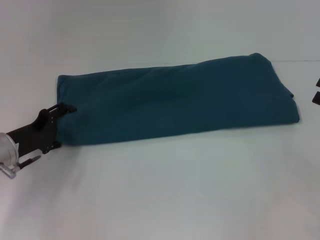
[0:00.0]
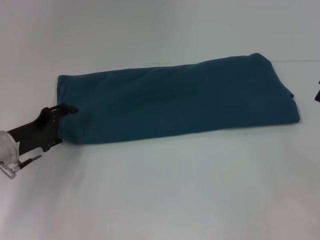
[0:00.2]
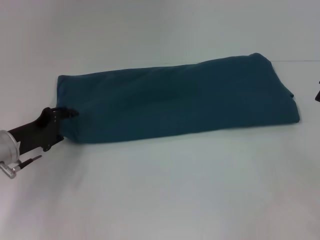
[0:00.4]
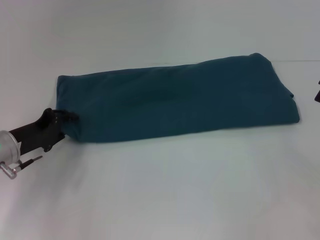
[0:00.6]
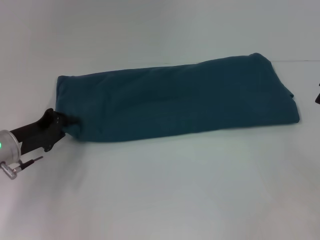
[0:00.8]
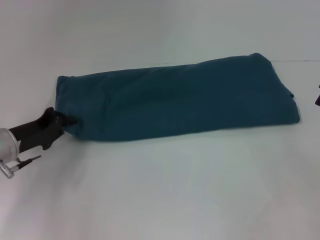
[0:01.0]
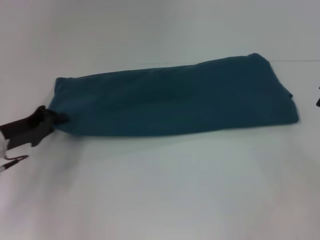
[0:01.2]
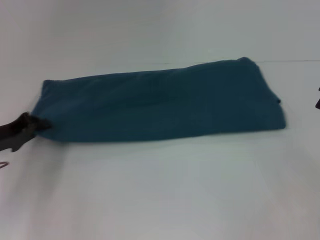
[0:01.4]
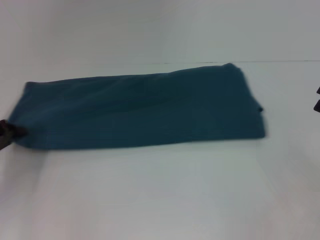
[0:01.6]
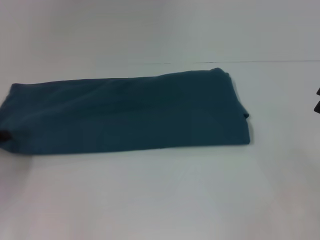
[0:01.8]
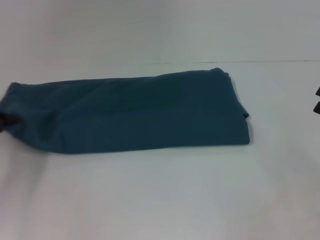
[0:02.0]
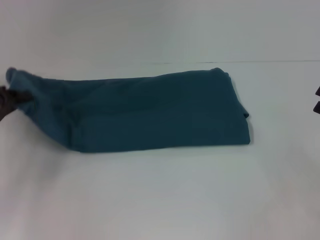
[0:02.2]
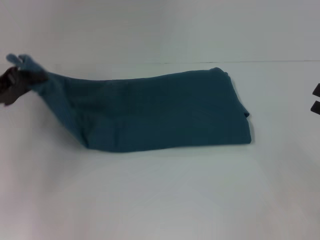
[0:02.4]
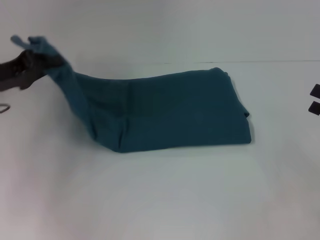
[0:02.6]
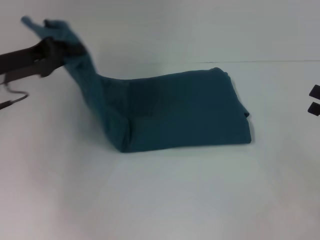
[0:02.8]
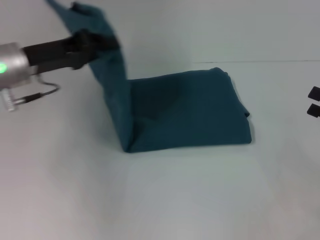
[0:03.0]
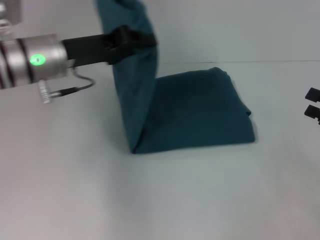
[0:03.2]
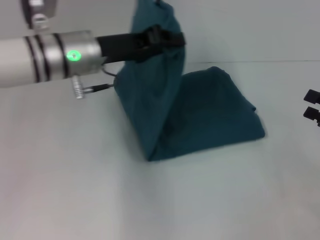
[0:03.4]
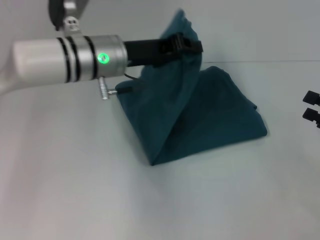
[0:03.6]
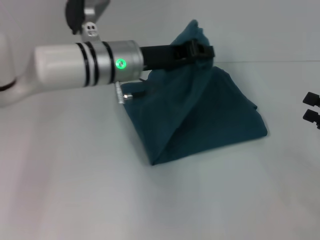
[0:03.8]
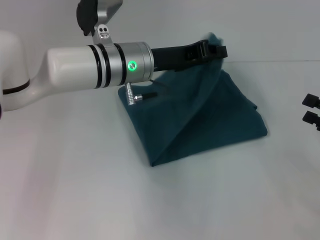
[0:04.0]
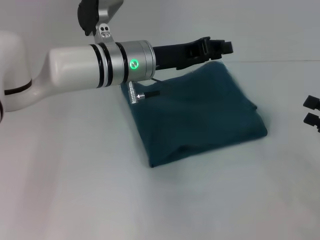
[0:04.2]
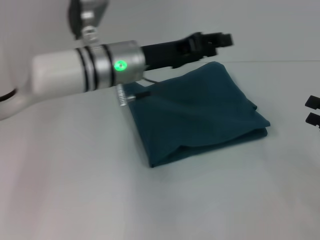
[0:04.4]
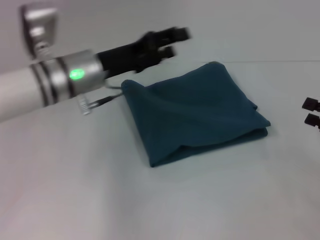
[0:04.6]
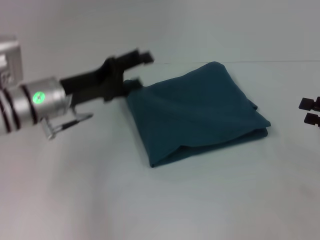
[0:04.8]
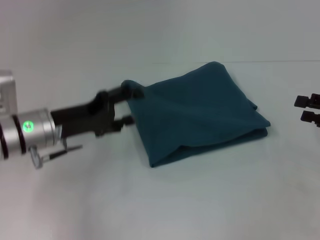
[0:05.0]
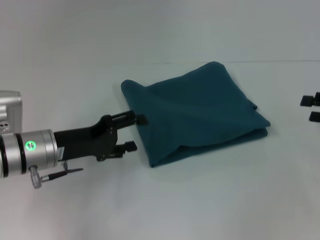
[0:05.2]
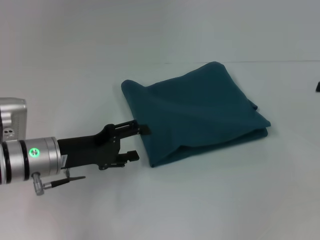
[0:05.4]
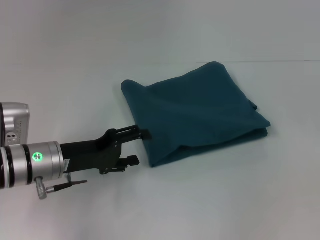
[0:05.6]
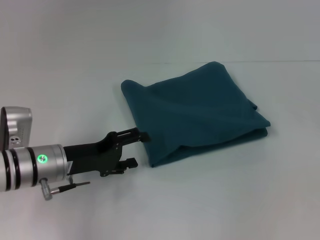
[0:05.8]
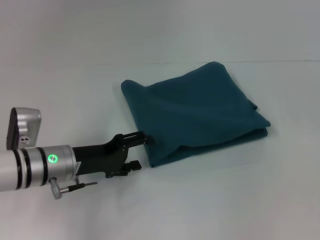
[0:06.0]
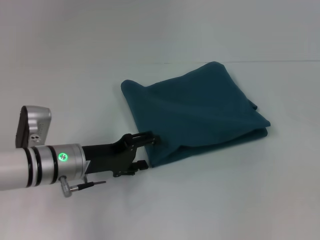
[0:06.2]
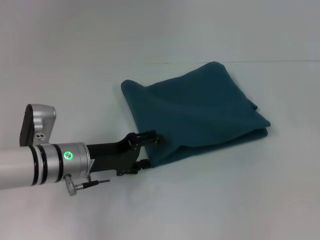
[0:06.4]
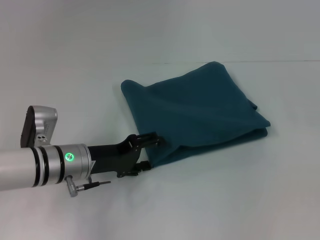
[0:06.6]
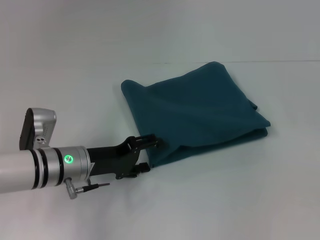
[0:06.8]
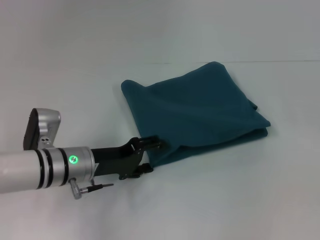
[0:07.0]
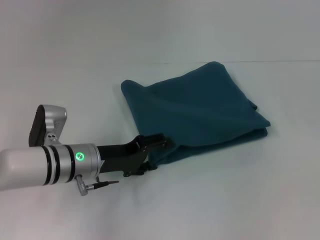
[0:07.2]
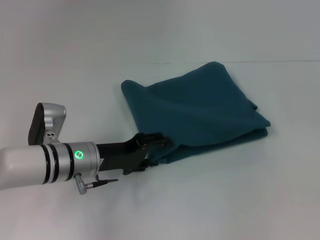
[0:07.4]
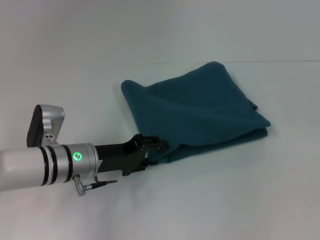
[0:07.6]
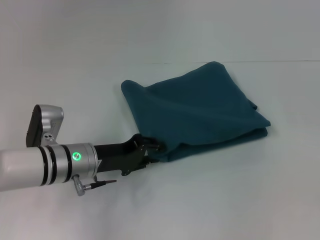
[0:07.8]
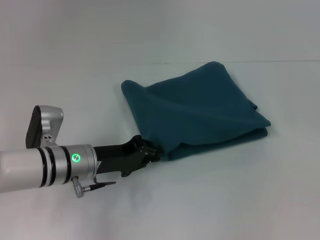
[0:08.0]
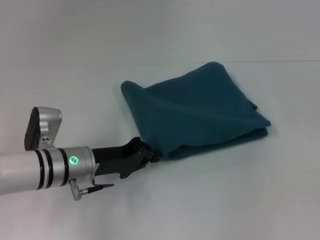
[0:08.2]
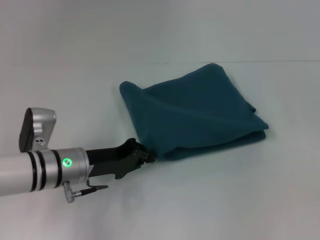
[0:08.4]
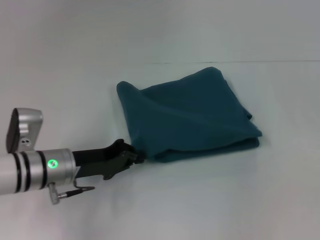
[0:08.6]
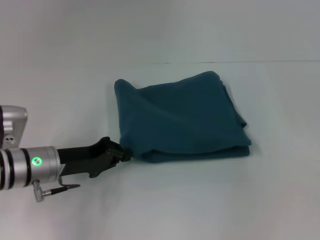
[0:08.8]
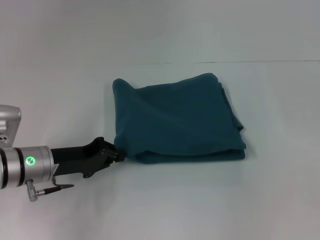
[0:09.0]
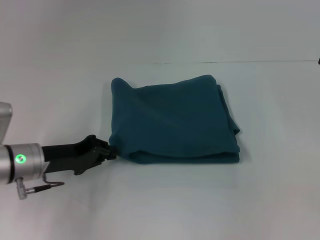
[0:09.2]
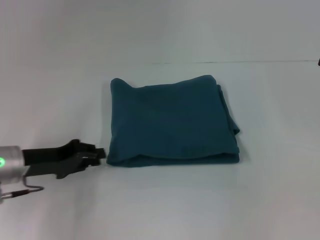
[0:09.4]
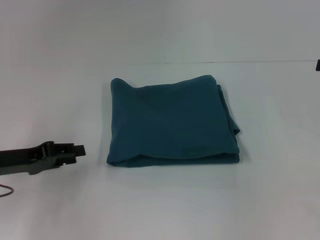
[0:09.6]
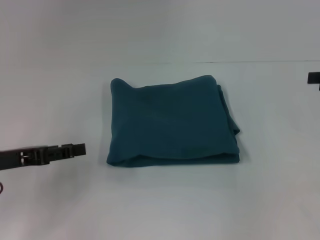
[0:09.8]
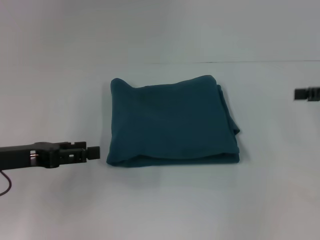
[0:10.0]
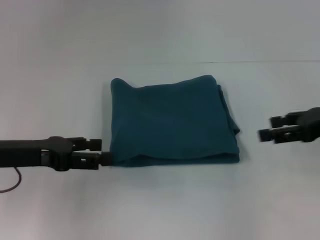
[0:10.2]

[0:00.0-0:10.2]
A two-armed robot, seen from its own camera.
Step, 0:00.0 to 0:04.2: Fold the clothes to the left.
0:00.0 to 0:01.4: The left gripper closes.
0:01.4 to 0:03.0: The left gripper travels upward, to the right and forward by some 15 cm.
0:03.0 to 0:04.4: The left gripper heads to the right, covering roughly 15 cm.
0:04.4 to 0:05.8: The right gripper goes roughly 15 cm upward and forward, while the left gripper moves to the left, downward and backward, some 20 cm, and opens its fingers.
0:05.8 to 0:07.2: The grippers stay close to where they were, moving slightly.
0:07.2 to 0:08.8: The left gripper shifts approximately 5 cm to the left, and closes up.
0:08.8 to 0:10.2: The left gripper goes some 10 cm upward and to the left, and opens its fingers, while the right gripper is displaced to the left by about 10 cm.

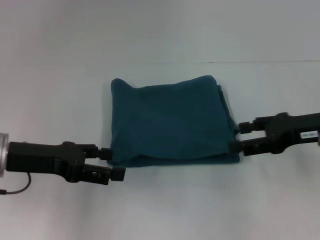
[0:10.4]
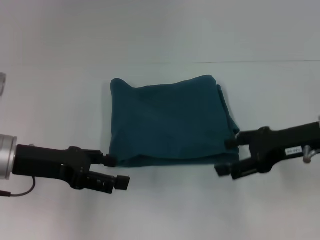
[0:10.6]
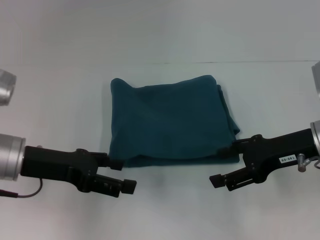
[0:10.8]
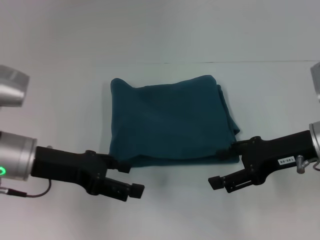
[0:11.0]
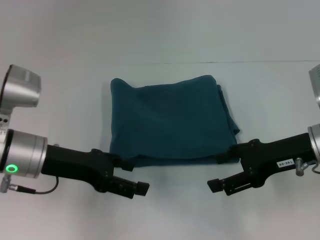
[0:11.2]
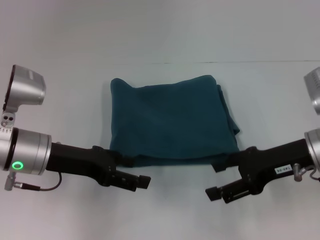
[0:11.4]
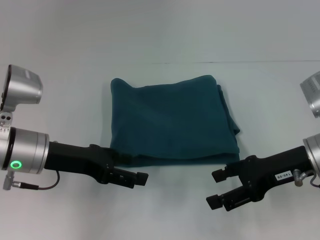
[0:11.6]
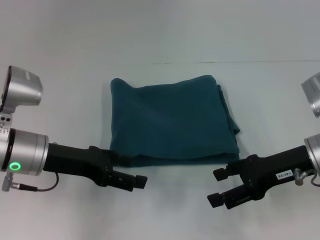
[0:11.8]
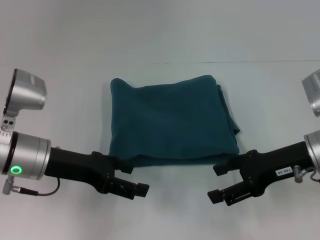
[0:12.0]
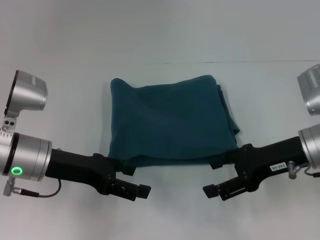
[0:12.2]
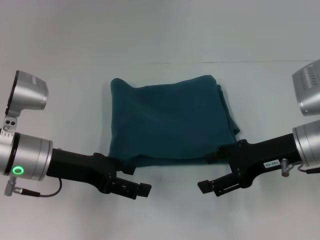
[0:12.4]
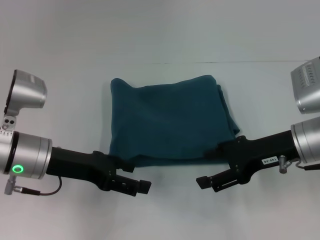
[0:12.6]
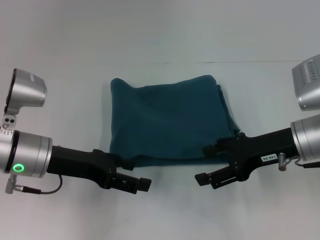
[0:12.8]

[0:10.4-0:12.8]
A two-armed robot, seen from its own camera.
0:10.4 to 0:11.6: The right gripper changes place by roughly 5 cm.
0:11.6 to 0:12.8: The grippers make only small movements.

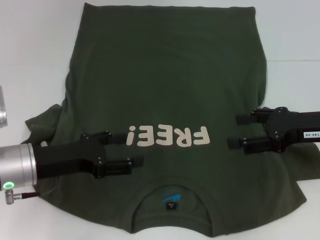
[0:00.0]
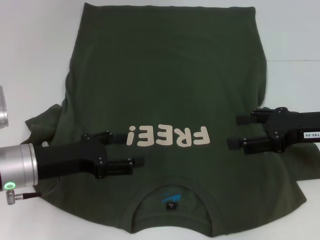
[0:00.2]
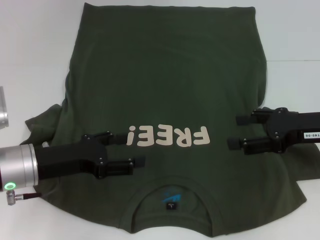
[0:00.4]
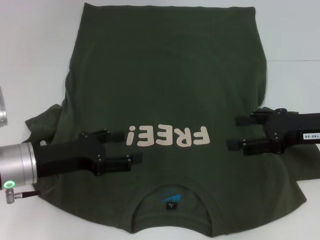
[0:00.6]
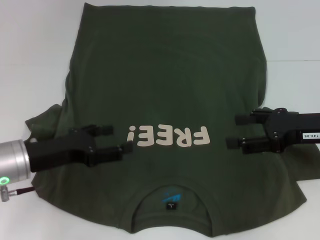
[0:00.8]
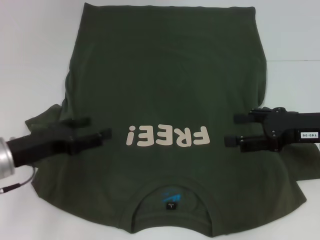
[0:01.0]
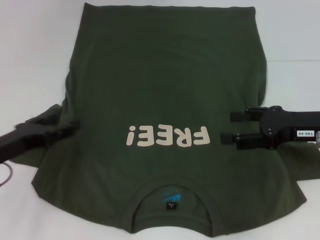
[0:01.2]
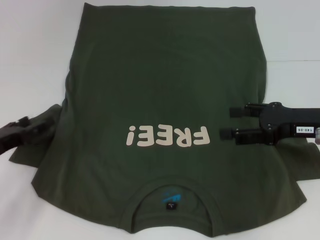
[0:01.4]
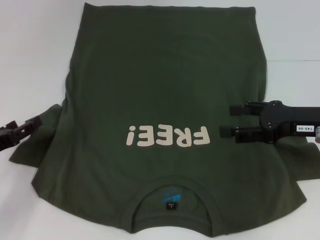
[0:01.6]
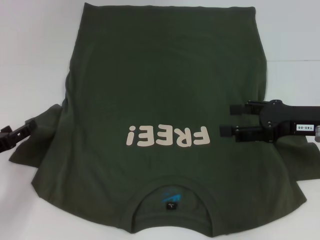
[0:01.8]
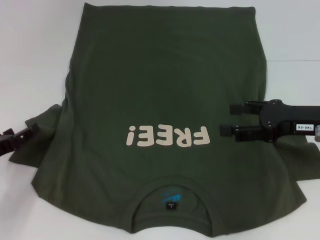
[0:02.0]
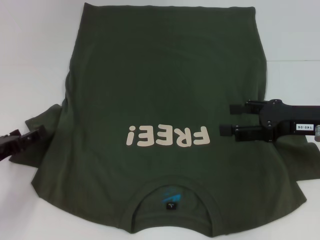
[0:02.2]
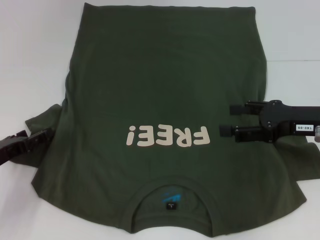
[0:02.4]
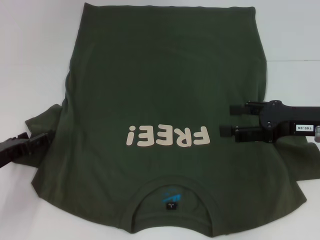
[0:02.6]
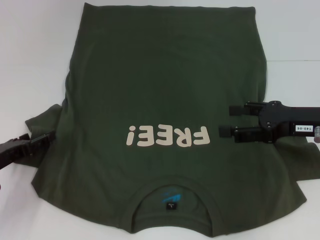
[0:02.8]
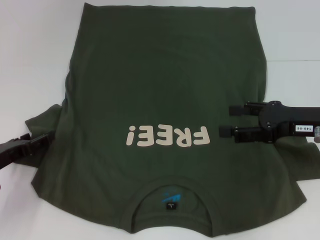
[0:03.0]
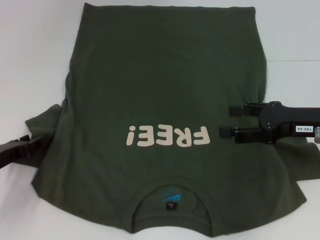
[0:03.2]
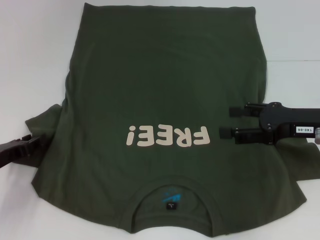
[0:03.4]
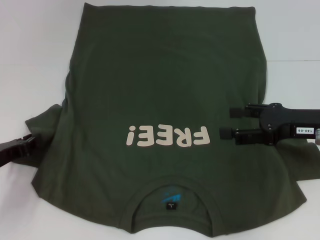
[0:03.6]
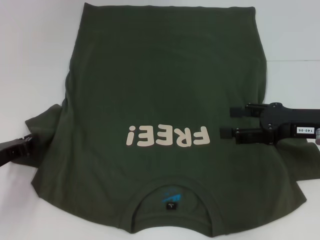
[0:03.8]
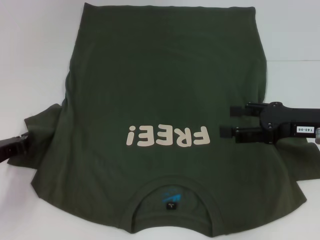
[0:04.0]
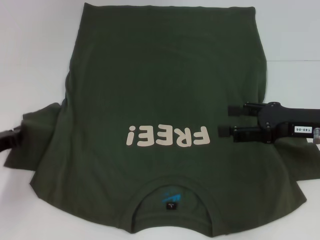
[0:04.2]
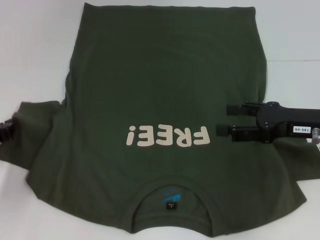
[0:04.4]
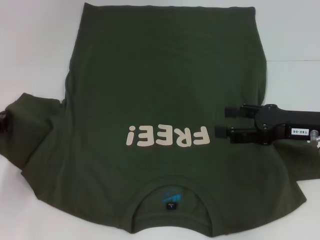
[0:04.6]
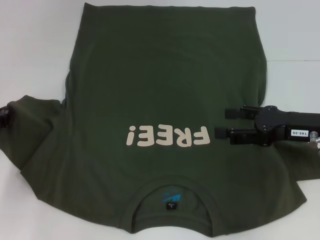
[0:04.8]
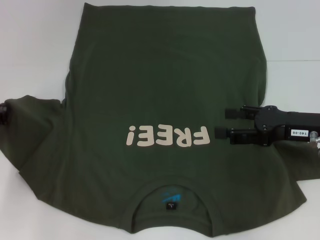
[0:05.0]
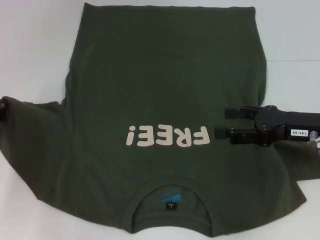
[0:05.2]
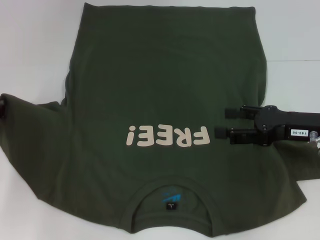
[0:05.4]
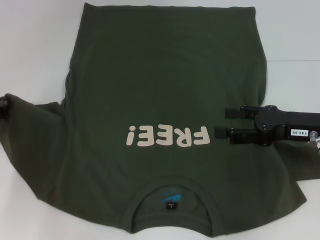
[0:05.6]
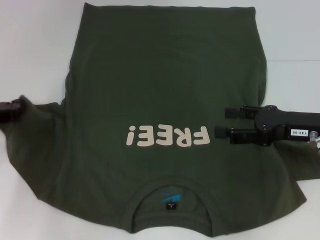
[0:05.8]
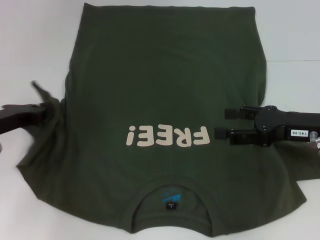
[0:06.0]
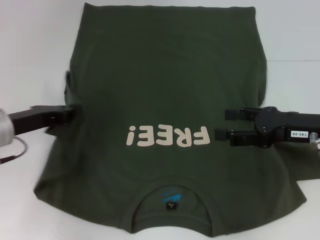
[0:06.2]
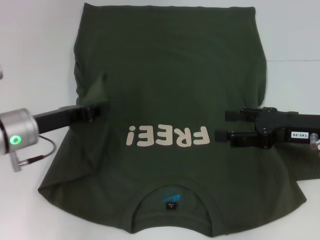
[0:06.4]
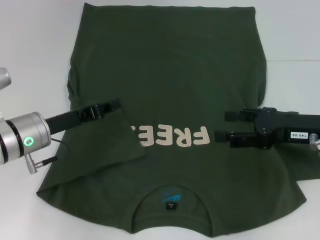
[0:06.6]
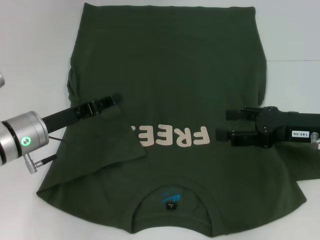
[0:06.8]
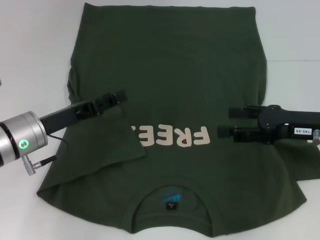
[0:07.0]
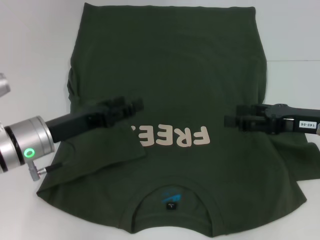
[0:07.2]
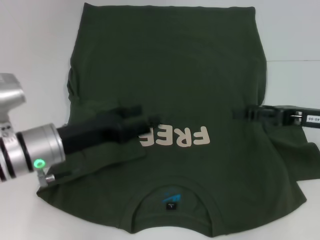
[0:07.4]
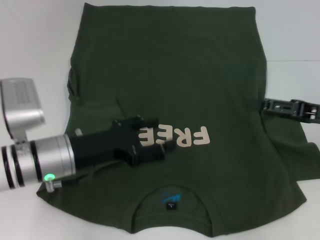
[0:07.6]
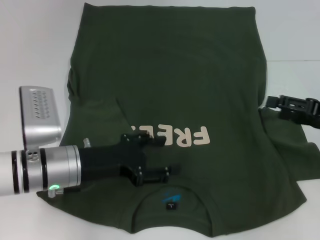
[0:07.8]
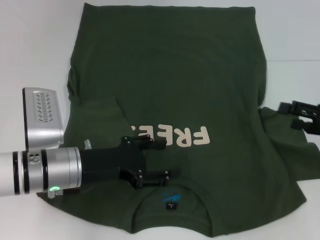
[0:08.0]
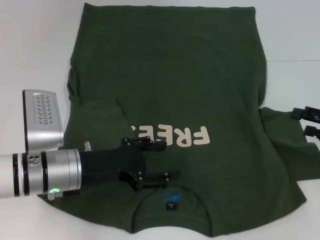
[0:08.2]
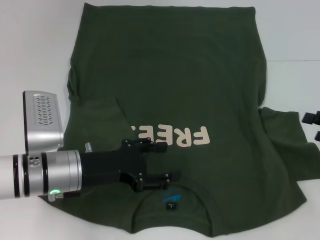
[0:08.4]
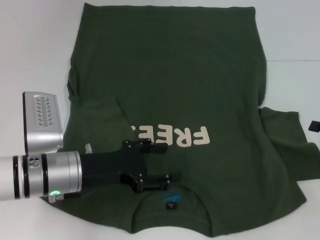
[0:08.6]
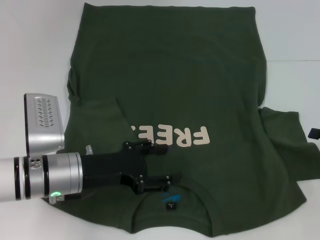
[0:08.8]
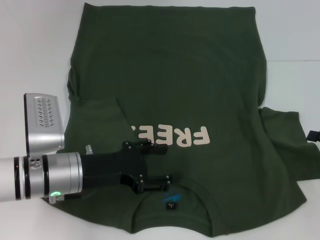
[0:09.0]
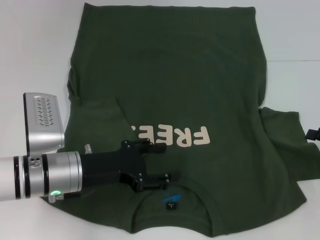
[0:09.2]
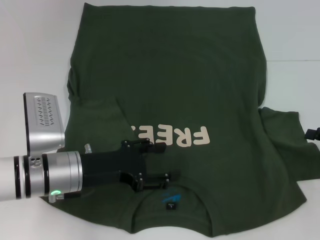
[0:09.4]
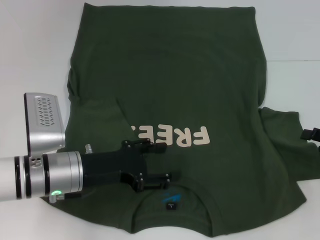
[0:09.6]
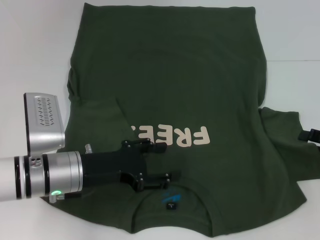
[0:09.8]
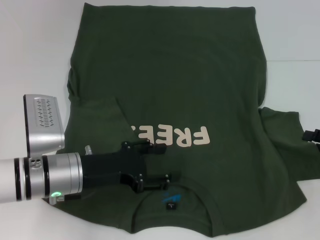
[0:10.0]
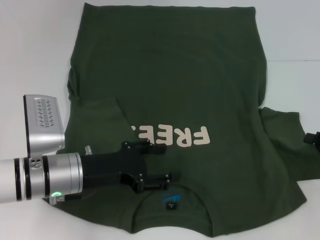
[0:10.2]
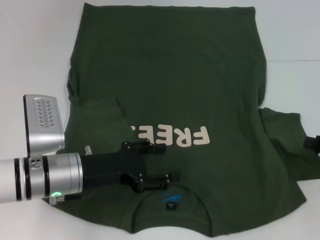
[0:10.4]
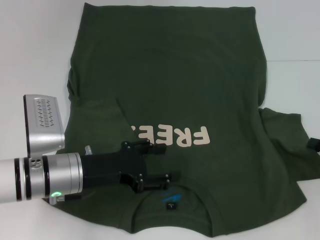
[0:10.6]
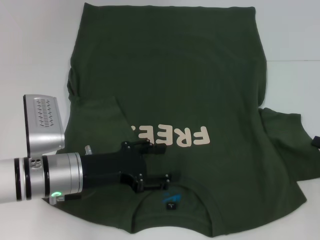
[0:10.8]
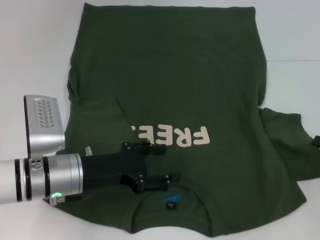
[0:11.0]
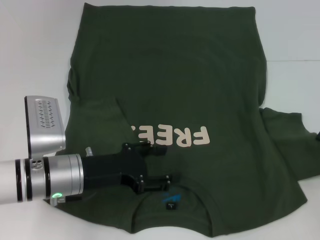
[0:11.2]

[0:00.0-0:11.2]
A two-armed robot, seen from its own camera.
Step, 0:00.0 to 0:06.4: Fold the bottom left sleeve with your left hand.
0:00.0 to 0:01.6: The left gripper moves to the left, about 10 cm.
0:01.6 to 0:03.2: The grippers stay close to where they were, moving slightly.
0:03.2 to 0:04.8: The left gripper shifts by approximately 5 cm, and closes its fingers.
0:04.8 to 0:06.4: The left gripper is displaced to the right by about 10 cm.
0:06.4 to 0:08.0: The grippers both shift to the right by roughly 5 cm. The left gripper opens up.
0:08.0 to 0:09.6: The right gripper ends up some 5 cm from where it was.
0:09.6 to 0:11.2: The right gripper closes.
